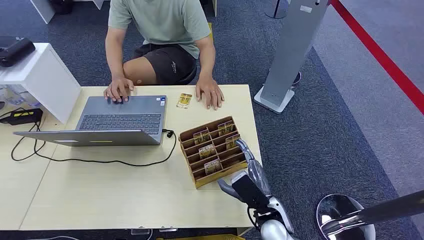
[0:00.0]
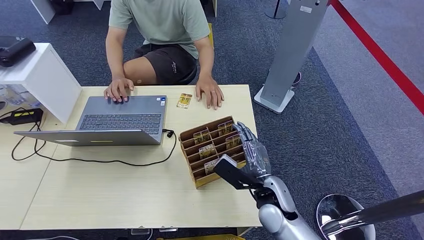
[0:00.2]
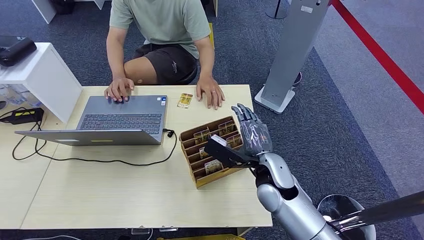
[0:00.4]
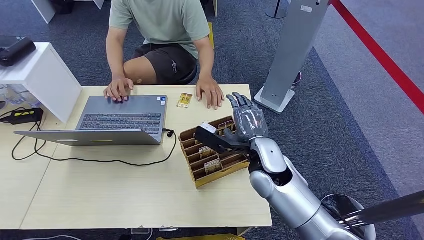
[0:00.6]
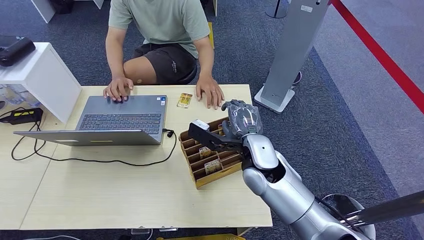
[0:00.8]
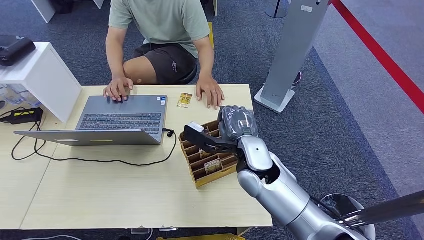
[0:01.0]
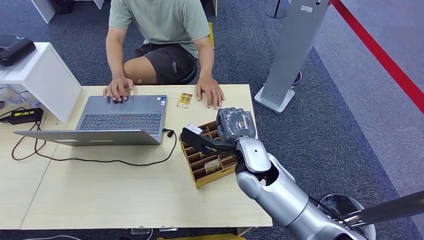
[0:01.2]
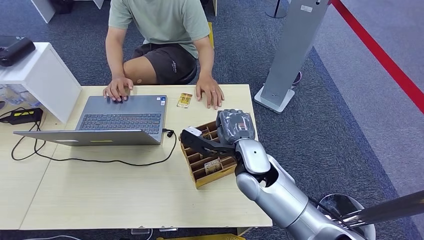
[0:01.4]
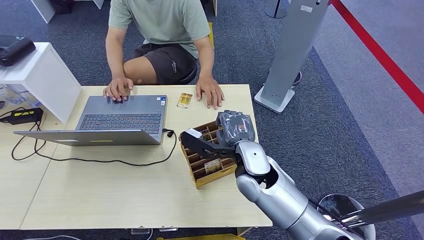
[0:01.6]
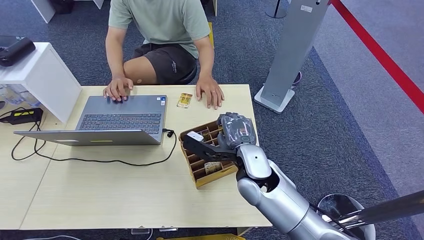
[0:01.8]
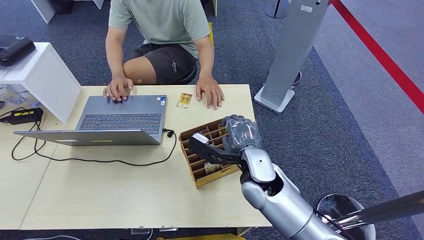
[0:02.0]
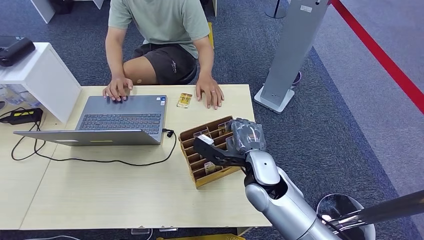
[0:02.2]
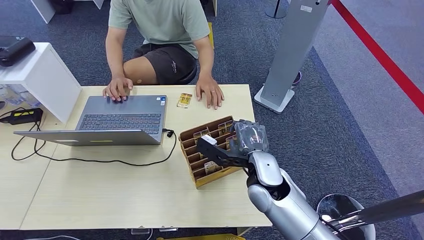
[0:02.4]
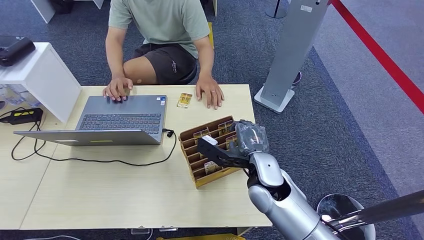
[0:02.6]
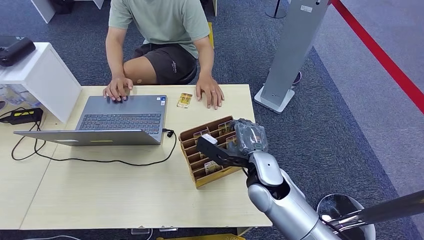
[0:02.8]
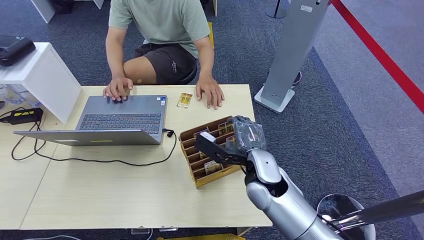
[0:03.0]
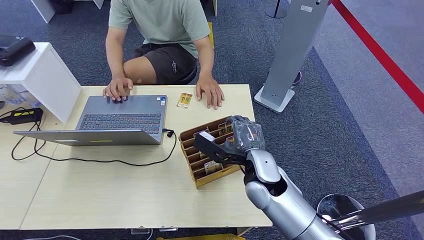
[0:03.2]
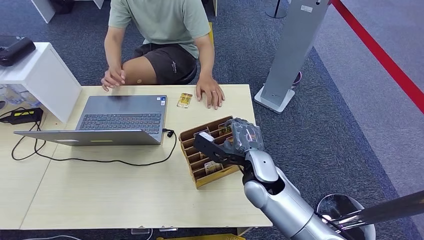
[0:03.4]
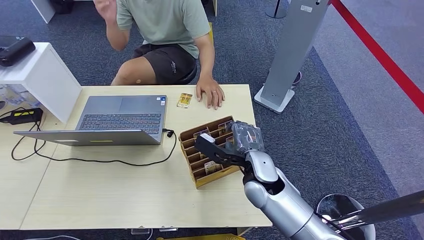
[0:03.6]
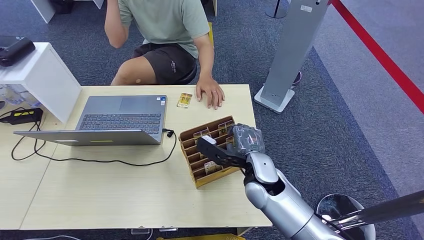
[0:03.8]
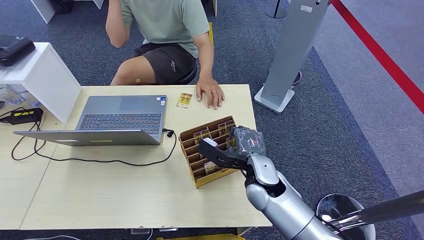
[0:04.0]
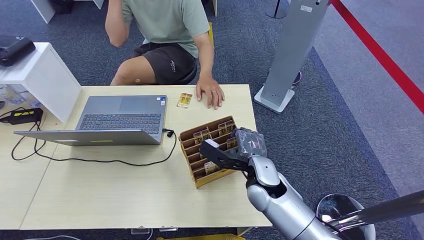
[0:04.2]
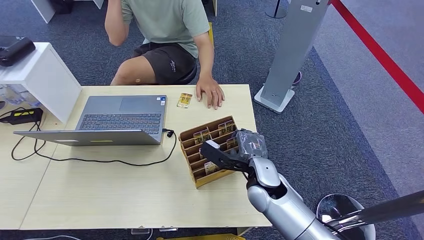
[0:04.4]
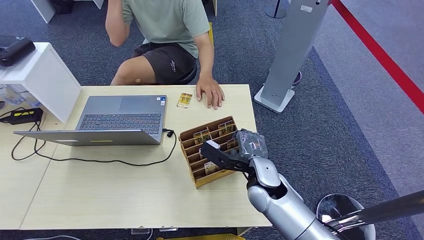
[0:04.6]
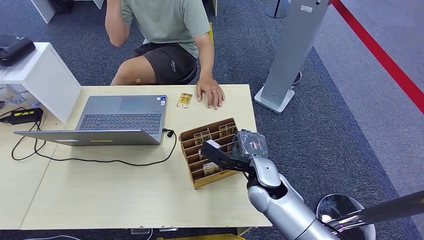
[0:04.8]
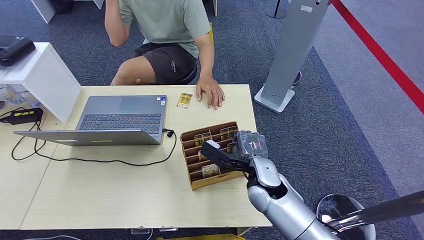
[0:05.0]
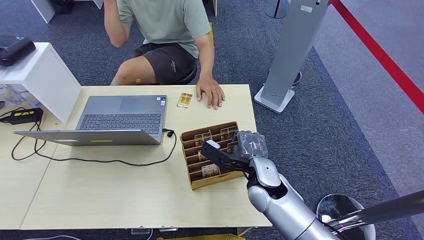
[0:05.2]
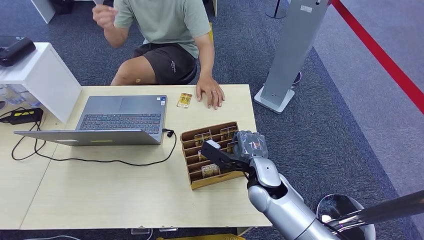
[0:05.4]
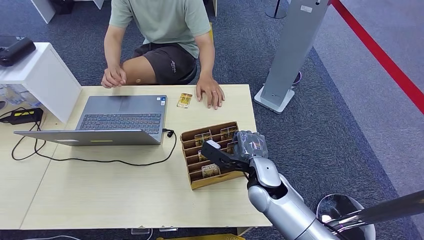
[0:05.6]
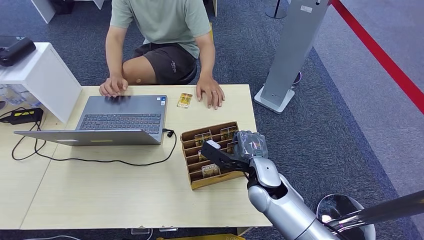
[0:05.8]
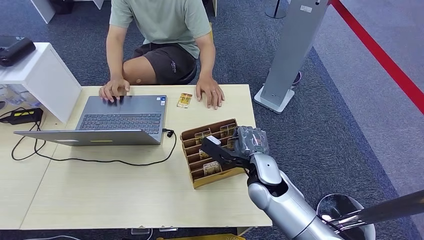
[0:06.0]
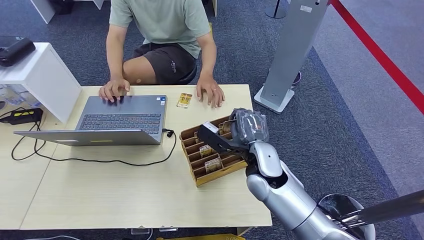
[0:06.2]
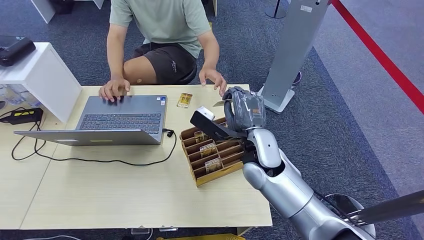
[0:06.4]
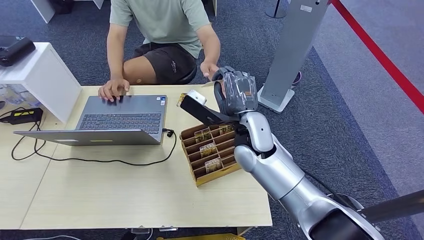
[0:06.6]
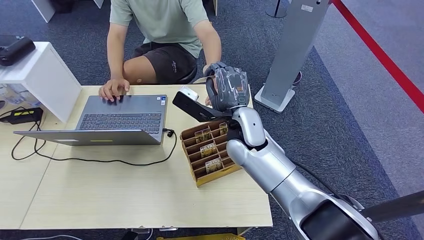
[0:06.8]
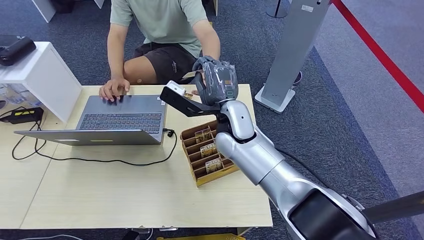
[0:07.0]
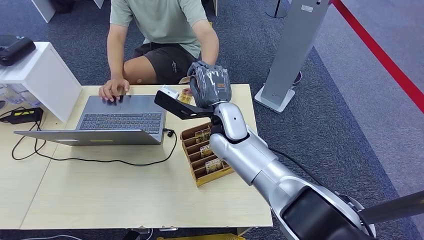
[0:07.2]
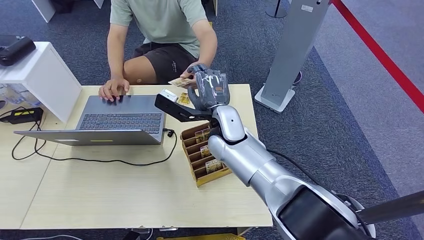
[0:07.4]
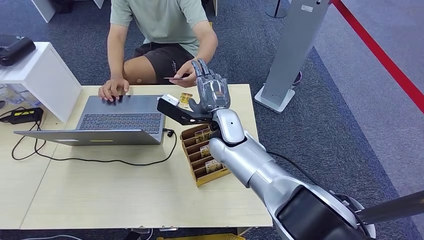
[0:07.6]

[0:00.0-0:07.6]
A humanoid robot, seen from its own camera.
Step, 0:00.0 to 0:06.2: Pick up the room card from the card holder.
Step, 0:06.4 to 0:07.6: Hand the room card to the target.
0:01.6 to 0:03.0: The hands make only small movements.
0:03.0 to 0:04.6: The hands move only a little.
0:04.6 to 0:06.0: The right hand travels upward by roughly 10 cm.
0:06.0 to 0:07.6: The right hand is displaced to the left and forward by some 10 cm.
